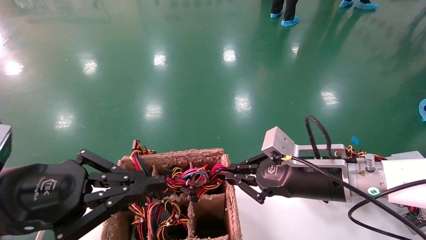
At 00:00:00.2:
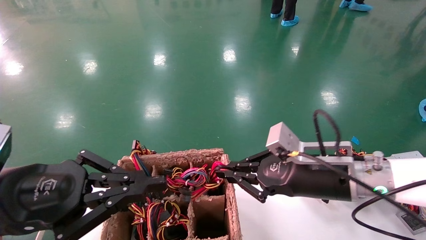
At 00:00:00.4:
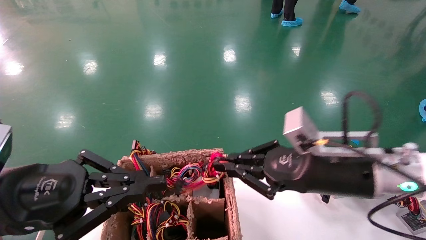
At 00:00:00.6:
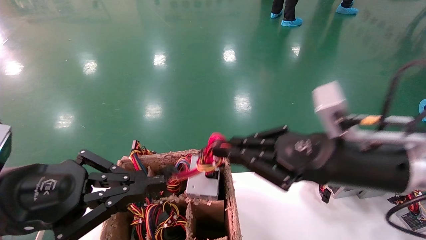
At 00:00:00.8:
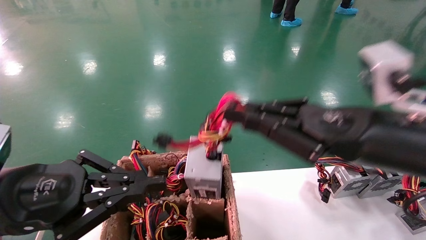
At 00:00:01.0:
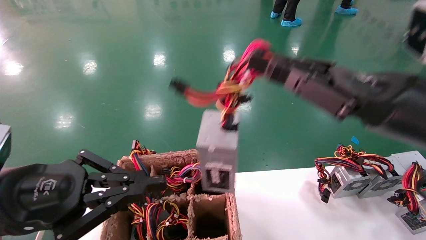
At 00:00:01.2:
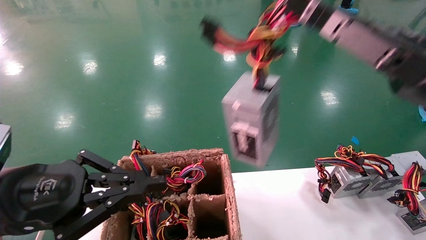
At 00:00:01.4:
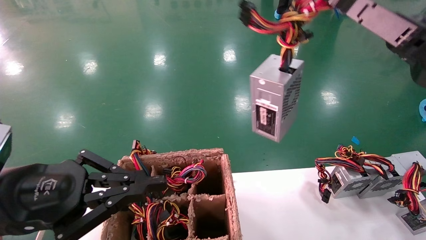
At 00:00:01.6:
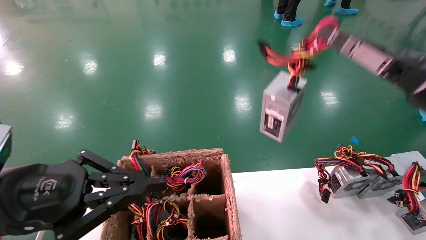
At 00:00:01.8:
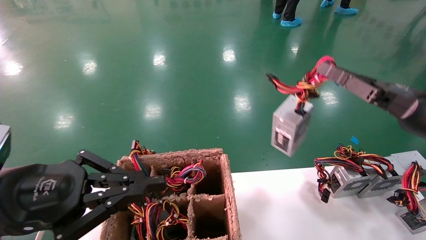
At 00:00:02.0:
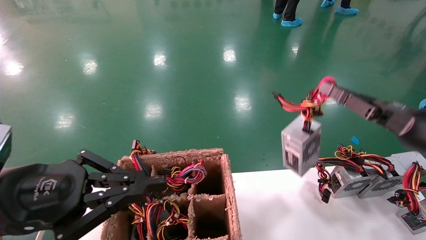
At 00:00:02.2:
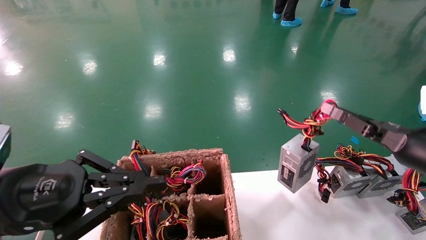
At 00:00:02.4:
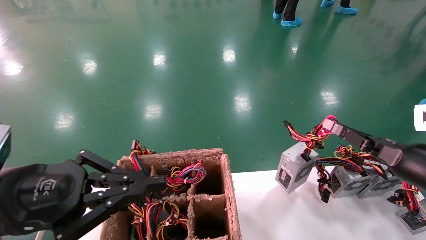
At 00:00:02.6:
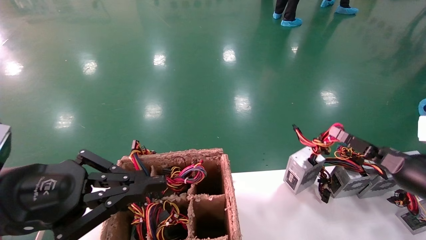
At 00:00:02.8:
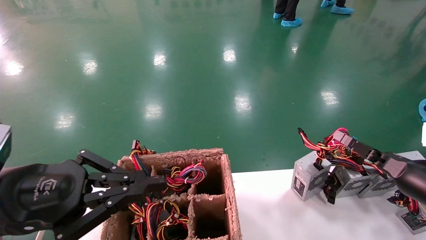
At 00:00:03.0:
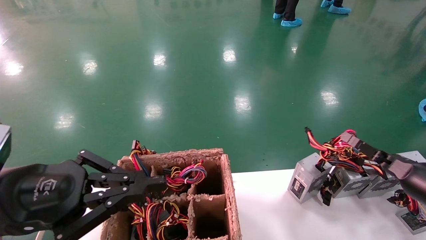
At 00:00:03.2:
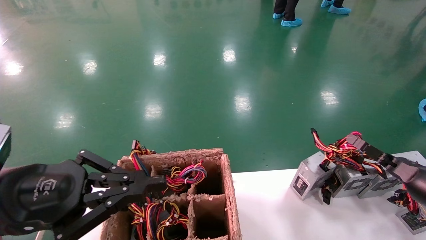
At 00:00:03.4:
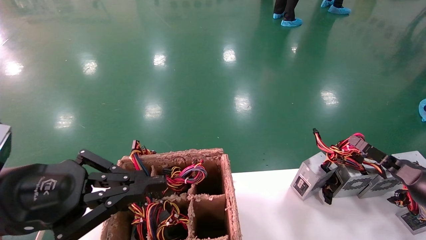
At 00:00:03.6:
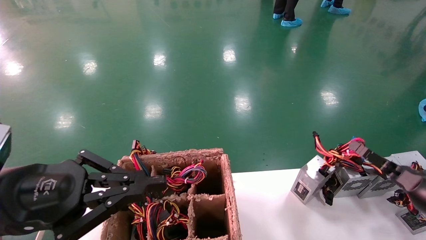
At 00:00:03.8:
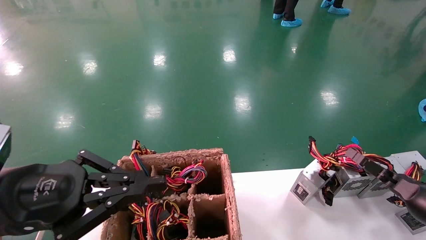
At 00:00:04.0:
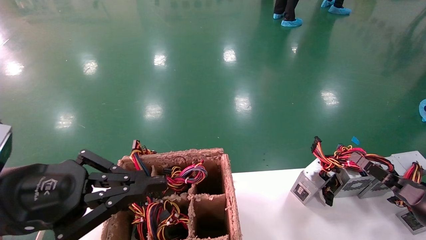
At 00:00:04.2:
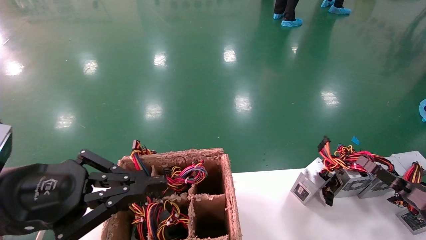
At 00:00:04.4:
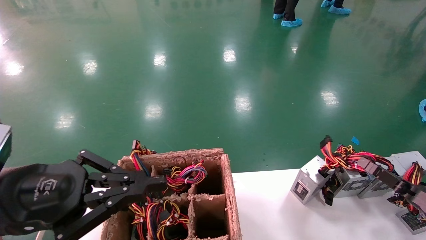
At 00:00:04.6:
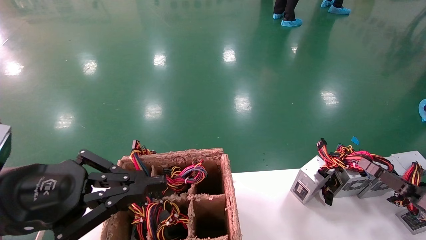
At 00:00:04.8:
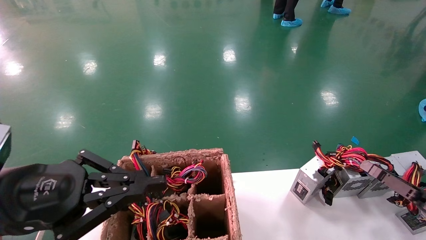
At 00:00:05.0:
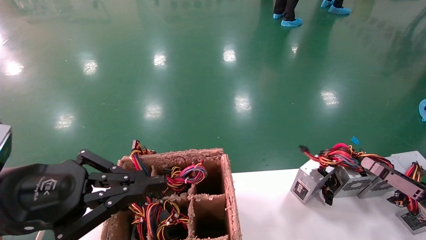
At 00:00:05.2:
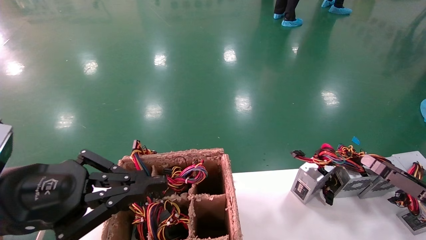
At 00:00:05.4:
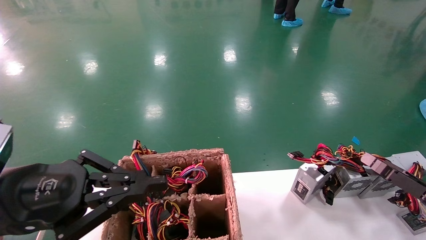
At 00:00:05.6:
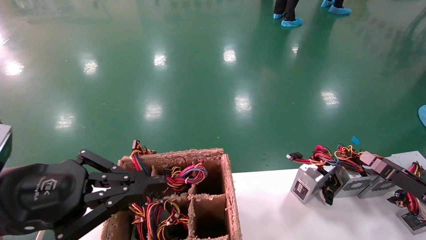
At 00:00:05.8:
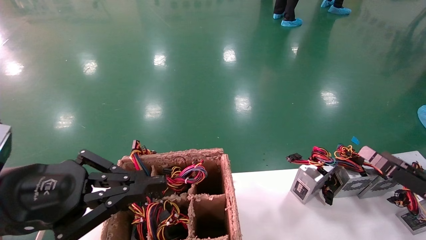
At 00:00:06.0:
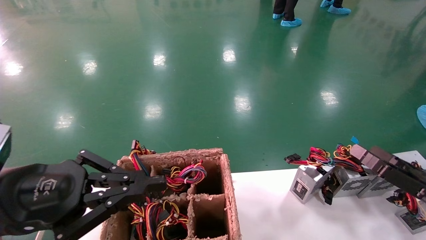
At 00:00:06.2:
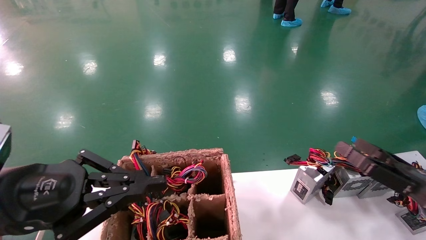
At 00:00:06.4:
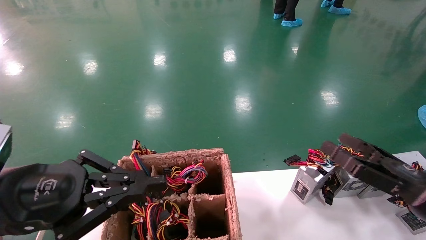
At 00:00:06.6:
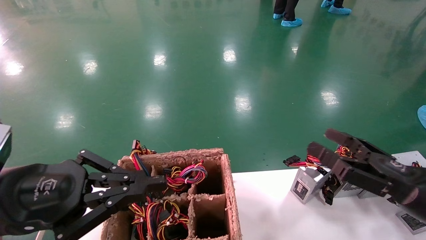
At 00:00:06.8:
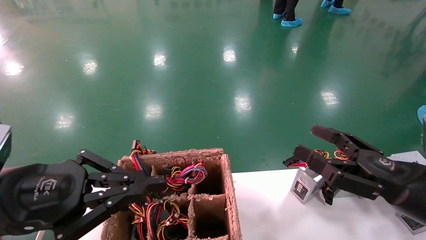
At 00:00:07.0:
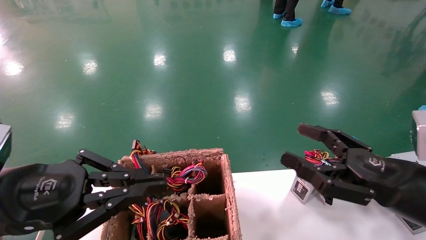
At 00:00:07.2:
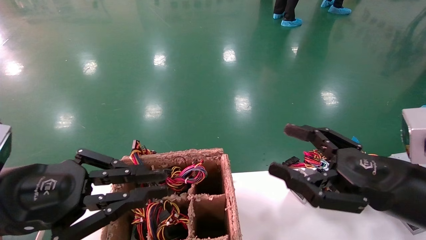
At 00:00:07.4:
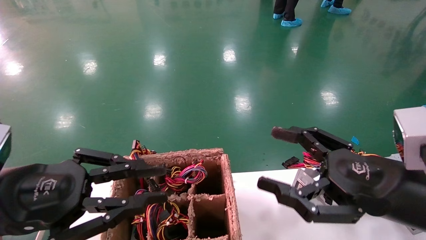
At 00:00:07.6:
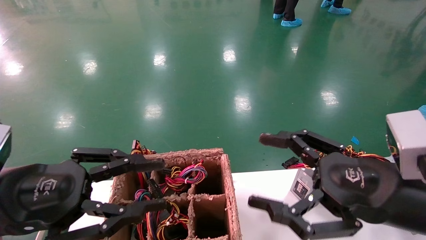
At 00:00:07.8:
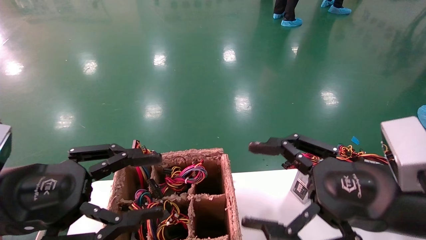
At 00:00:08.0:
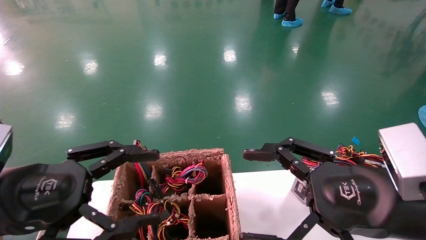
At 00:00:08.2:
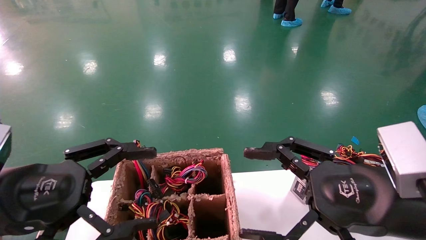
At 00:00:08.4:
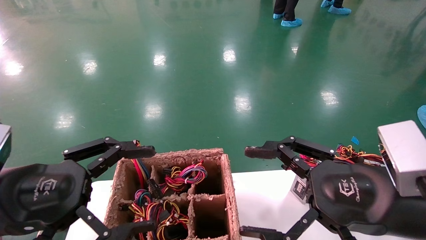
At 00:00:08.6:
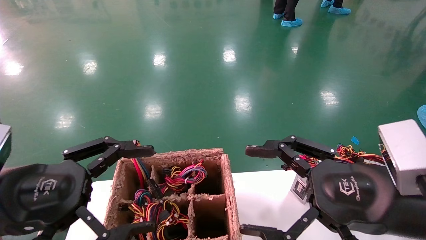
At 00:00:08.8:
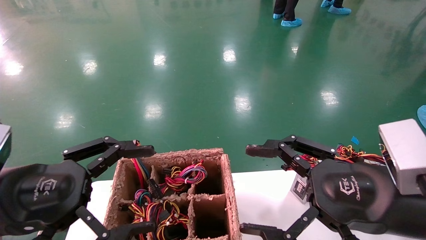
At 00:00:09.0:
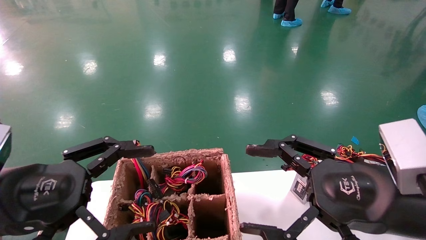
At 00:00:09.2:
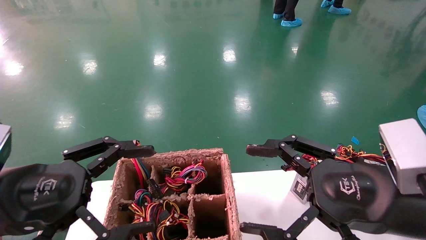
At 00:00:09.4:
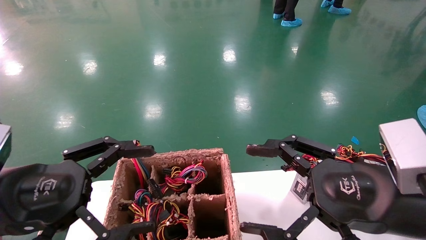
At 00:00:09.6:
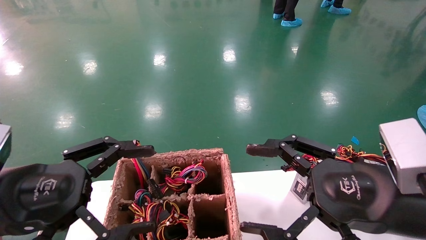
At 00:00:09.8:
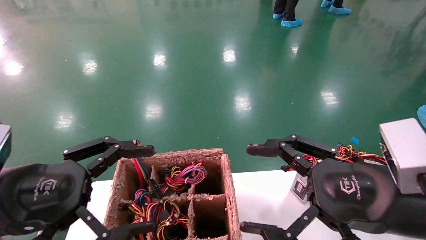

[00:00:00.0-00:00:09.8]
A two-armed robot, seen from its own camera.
Step, 00:00:00.2 to 00:00:04.4: Place the main unit power supply in the designated area.
00:00:00.0 to 00:00:01.4: The right gripper moves upward and to the right, some 20 cm.
00:00:01.4 to 00:00:02.8: The right gripper shifts about 20 cm downward and to the right.
00:00:02.8 to 00:00:04.2: The right gripper moves roughly 5 cm.
00:00:04.2 to 00:00:05.6: The right gripper opens its fingers.
00:00:05.6 to 00:00:07.0: The right gripper goes roughly 15 cm to the left and upward.
00:00:07.0 to 00:00:08.4: The right gripper goes approximately 5 cm to the left; the left gripper opens up.
00:00:08.4 to 00:00:09.8: Neither gripper changes place.

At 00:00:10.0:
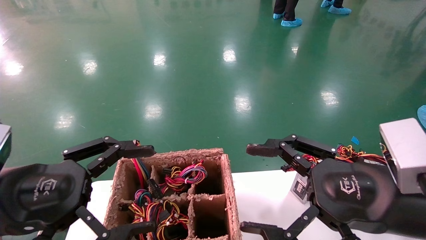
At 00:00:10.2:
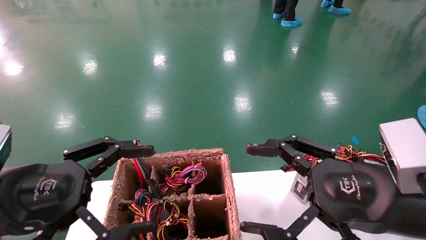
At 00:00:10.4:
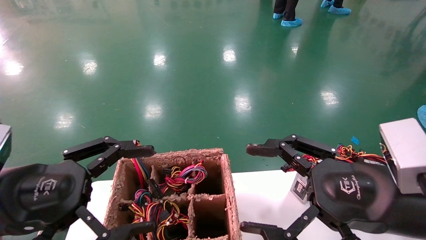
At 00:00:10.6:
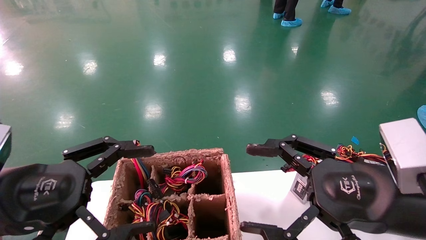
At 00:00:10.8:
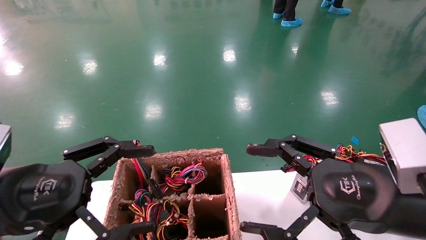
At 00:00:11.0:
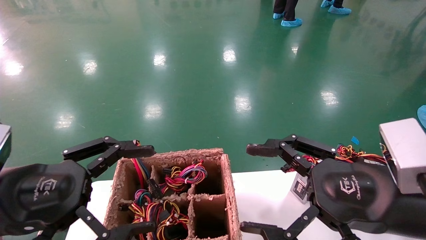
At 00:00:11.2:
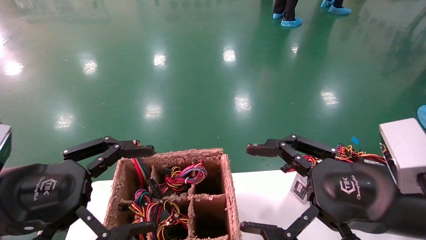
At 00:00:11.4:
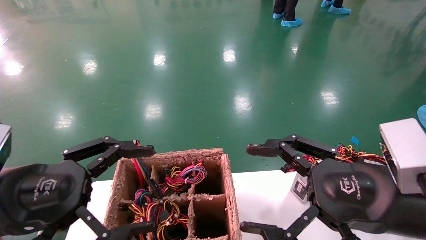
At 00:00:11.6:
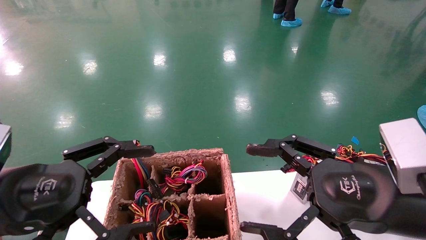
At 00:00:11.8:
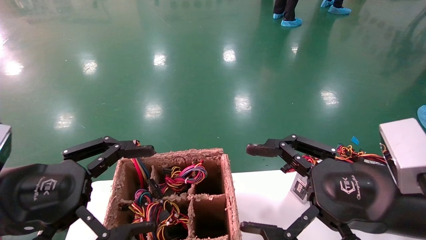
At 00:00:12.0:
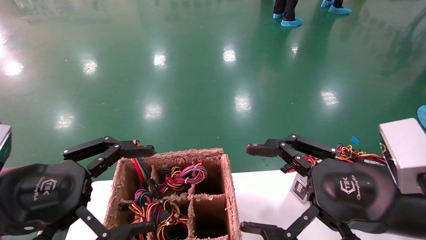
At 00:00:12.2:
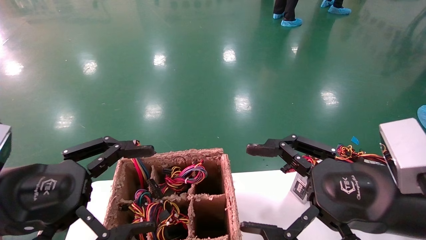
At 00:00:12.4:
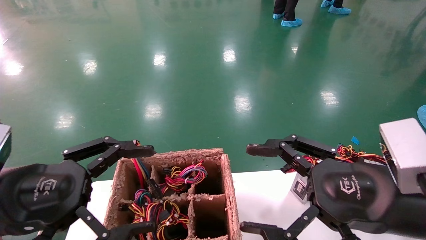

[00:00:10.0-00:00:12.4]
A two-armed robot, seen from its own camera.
00:00:10.0 to 00:00:12.4: The two grippers keep their place.
